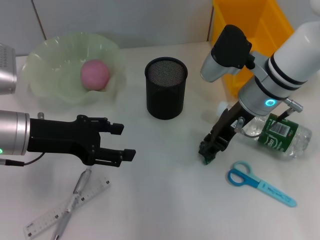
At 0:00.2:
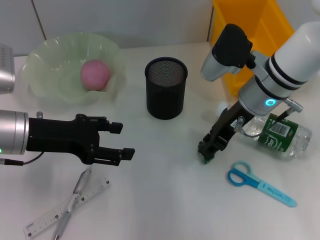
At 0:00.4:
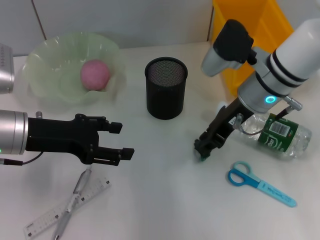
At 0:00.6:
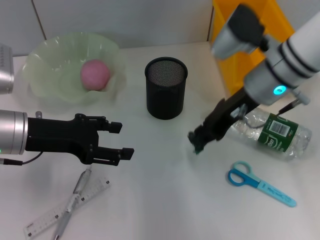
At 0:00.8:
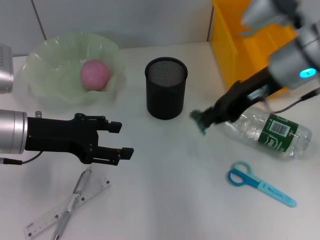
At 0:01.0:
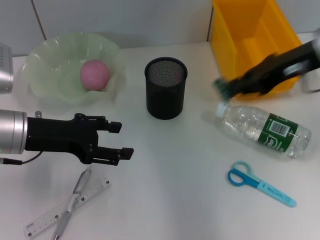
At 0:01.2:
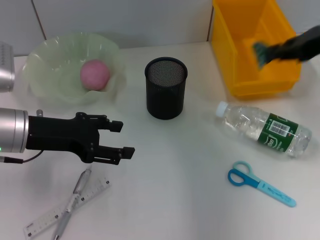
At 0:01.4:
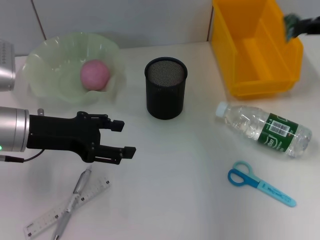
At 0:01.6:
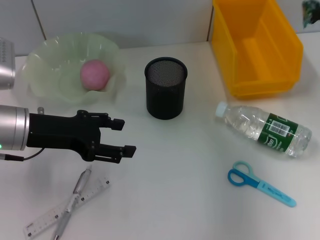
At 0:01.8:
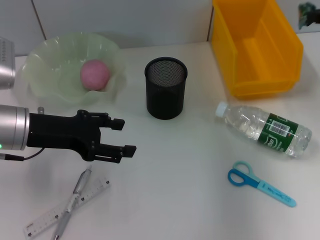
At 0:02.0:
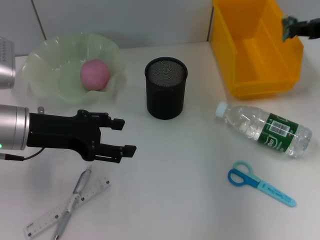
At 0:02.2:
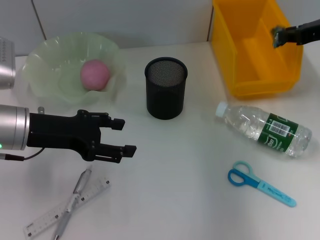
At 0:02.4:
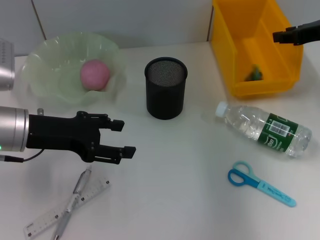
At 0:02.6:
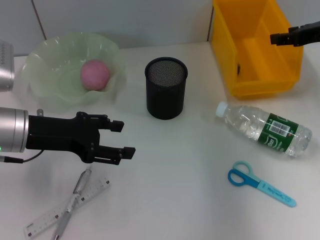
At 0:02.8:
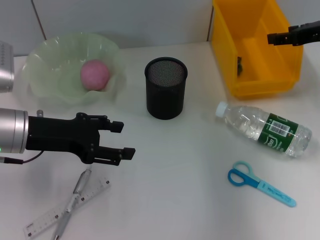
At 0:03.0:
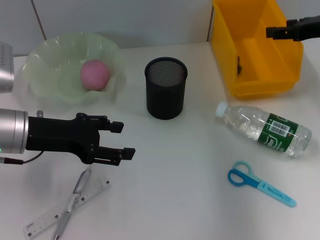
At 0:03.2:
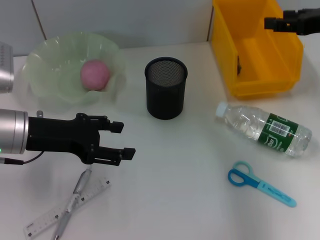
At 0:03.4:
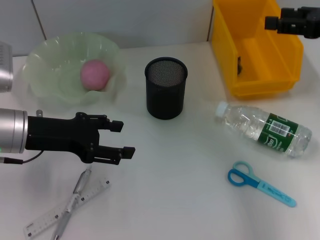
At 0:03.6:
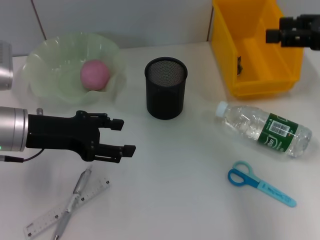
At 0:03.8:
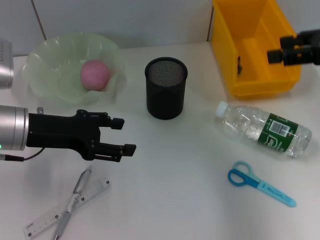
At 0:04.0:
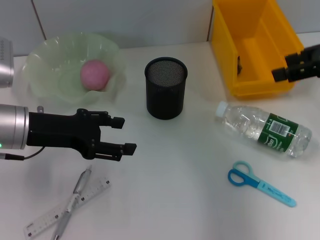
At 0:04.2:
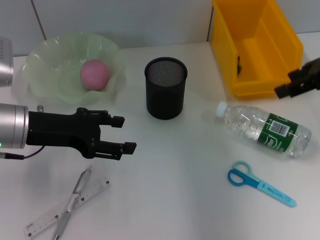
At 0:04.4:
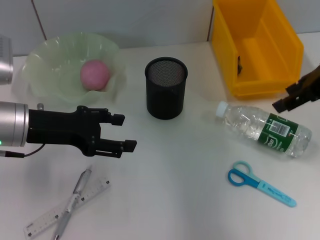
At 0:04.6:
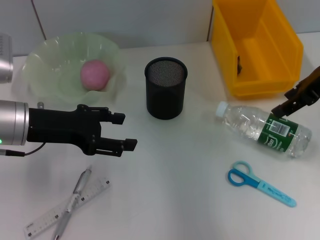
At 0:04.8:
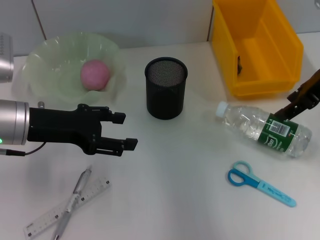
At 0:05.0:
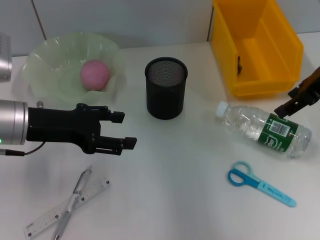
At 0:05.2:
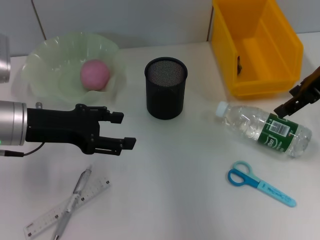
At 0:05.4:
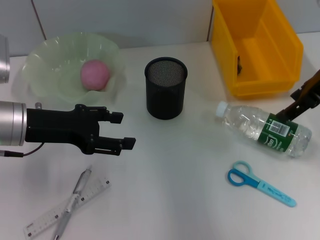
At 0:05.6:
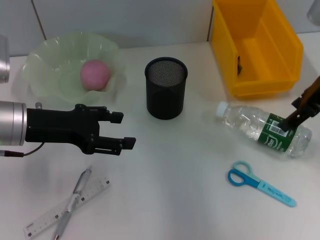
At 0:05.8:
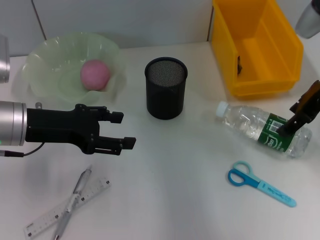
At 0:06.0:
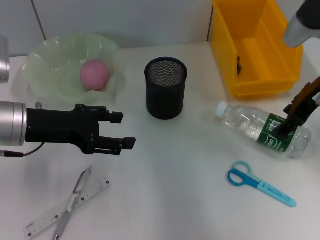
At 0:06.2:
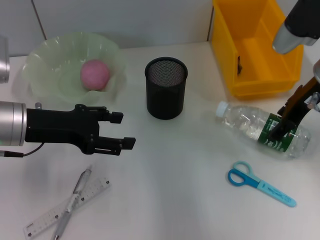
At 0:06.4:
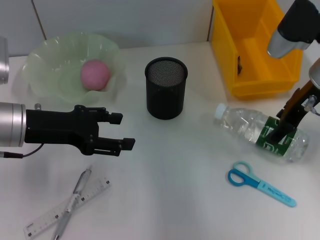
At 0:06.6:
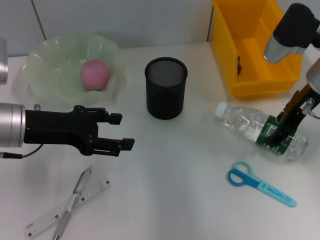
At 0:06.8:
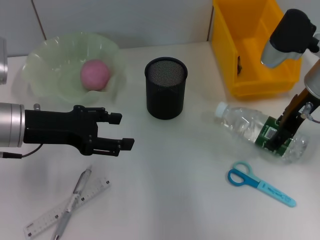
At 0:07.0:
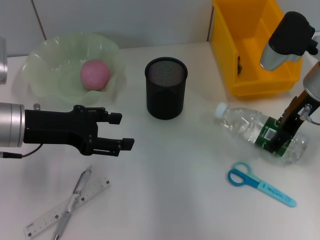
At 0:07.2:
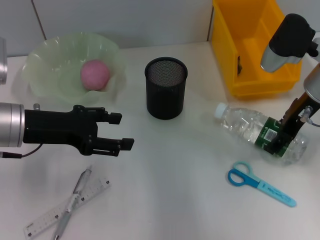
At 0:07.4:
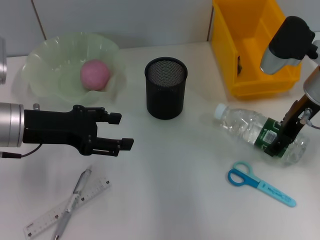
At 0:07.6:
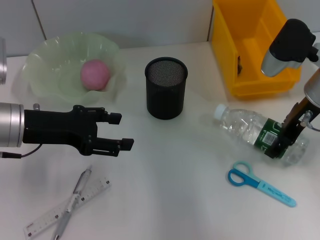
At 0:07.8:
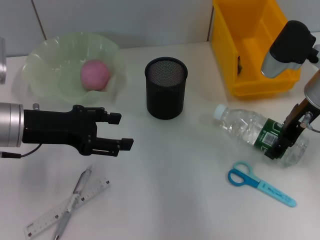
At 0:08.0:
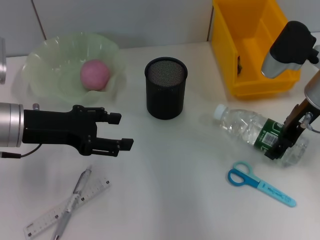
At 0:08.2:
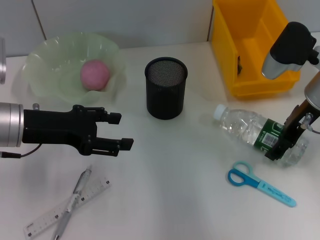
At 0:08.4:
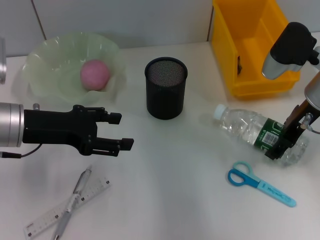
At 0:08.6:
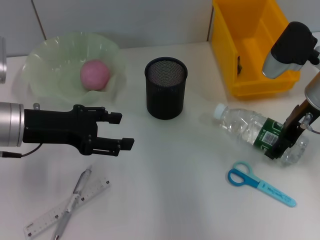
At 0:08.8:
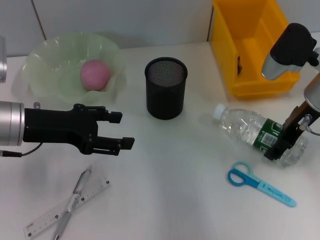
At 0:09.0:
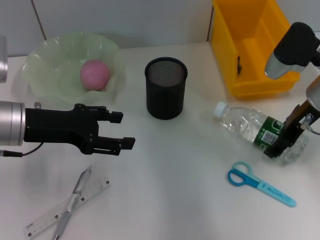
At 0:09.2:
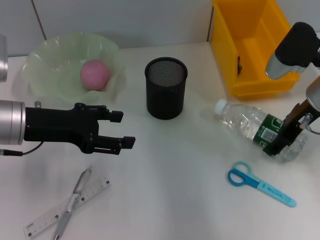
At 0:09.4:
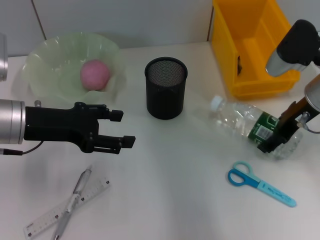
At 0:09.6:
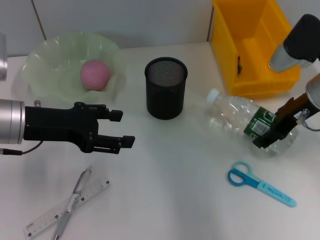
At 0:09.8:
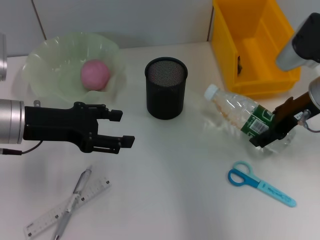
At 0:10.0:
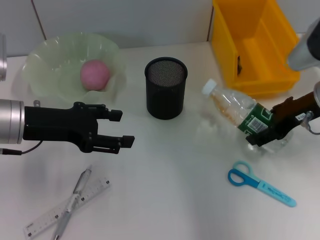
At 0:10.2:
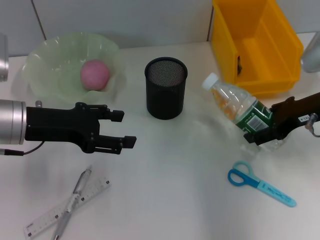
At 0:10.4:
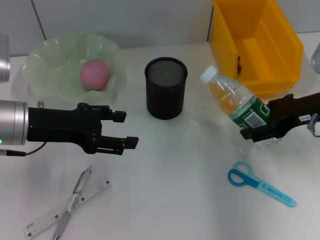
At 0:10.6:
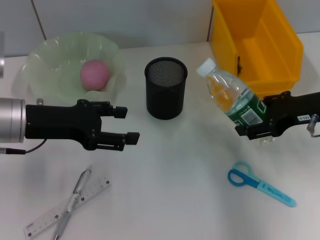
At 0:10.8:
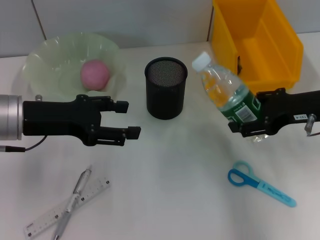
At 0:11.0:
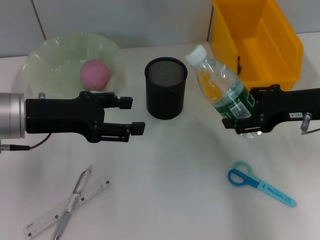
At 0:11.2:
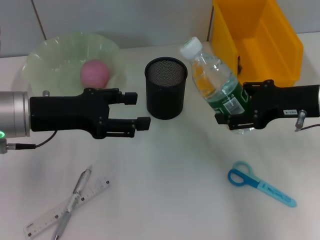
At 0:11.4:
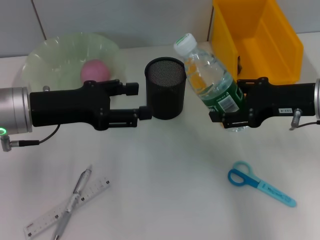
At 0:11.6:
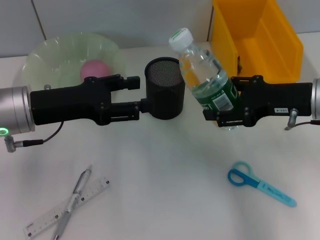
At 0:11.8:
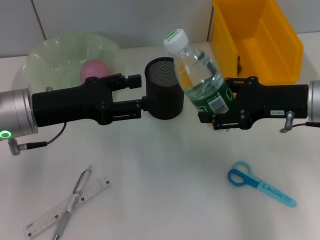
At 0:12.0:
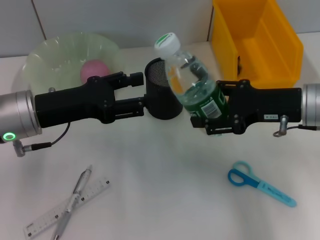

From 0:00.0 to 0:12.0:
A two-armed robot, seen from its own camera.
Step, from 0:00.2 to 0:02.8: Place the plastic into the trash can with the right hand.
Step, from 0:03.0 to 0:09.0: Grab the water bottle with the right hand.
From 0:00.0 to 0:01.6: The right gripper travels to the right and upward by roughly 25 cm.
From 0:01.6 to 0:03.0: The right gripper heads downward, covering roughly 5 cm, and opens.
From 0:03.0 to 0:04.4: The right gripper shifts by some 5 cm.
From 0:04.4 to 0:06.0: The right gripper moves about 5 cm.
From 0:06.0 to 0:07.6: The grippers make only small movements.
From 0:07.6 to 0:09.0: The two grippers keep their place.

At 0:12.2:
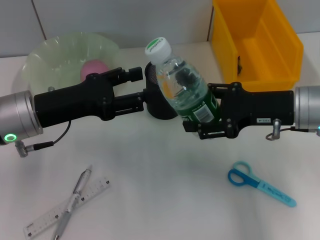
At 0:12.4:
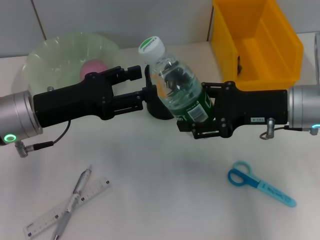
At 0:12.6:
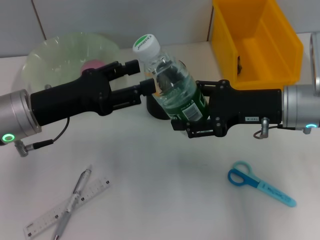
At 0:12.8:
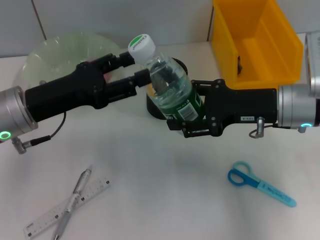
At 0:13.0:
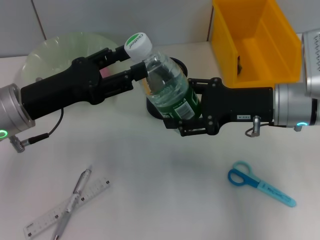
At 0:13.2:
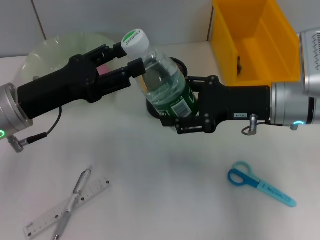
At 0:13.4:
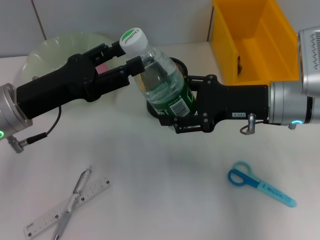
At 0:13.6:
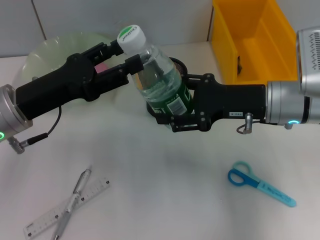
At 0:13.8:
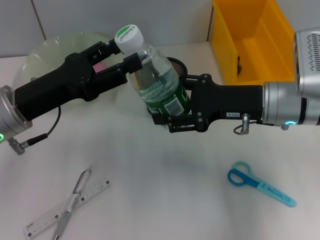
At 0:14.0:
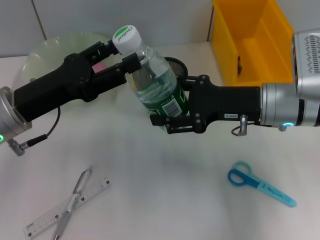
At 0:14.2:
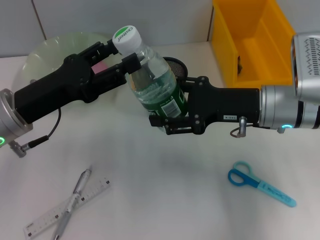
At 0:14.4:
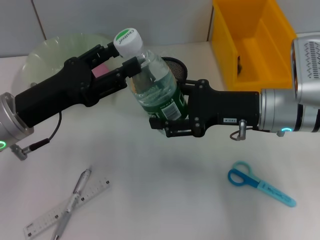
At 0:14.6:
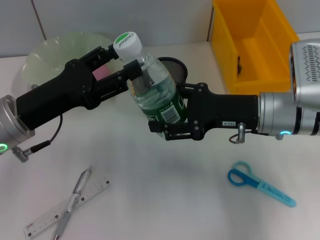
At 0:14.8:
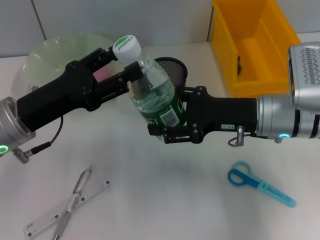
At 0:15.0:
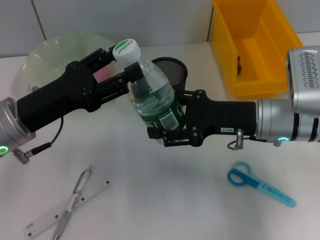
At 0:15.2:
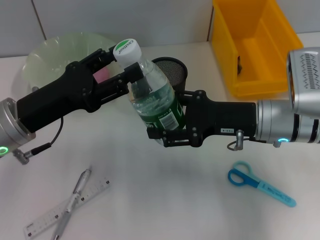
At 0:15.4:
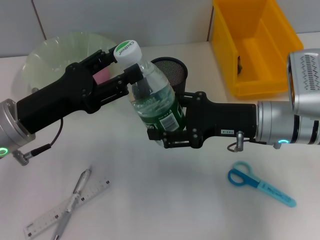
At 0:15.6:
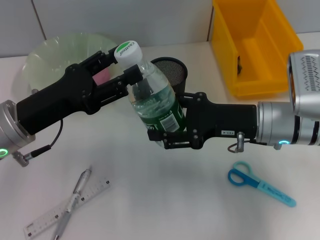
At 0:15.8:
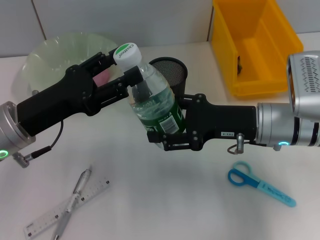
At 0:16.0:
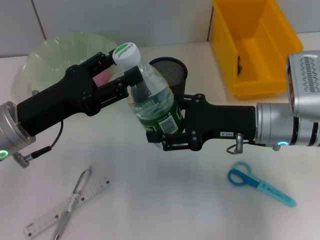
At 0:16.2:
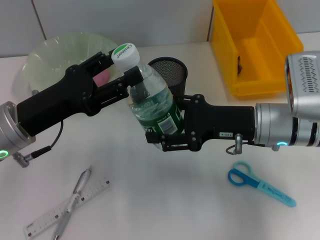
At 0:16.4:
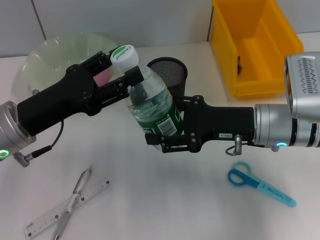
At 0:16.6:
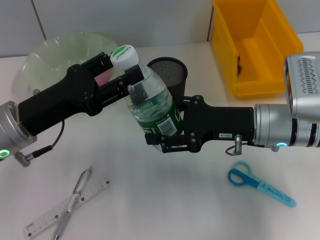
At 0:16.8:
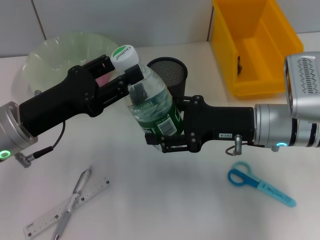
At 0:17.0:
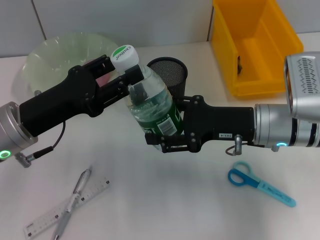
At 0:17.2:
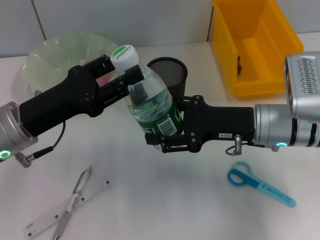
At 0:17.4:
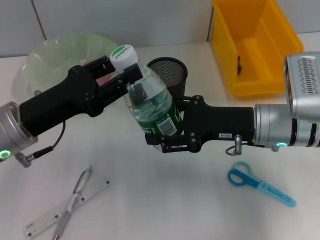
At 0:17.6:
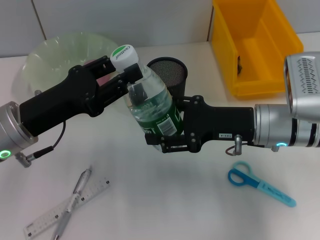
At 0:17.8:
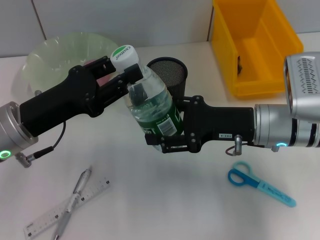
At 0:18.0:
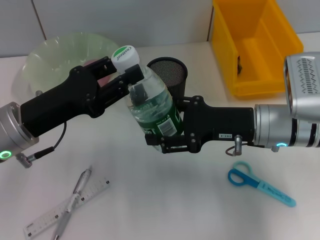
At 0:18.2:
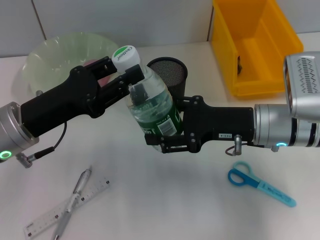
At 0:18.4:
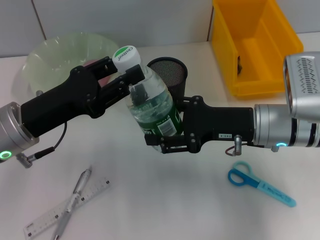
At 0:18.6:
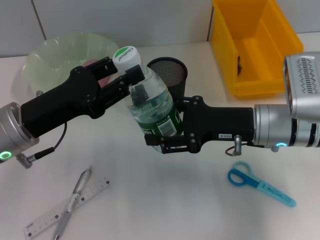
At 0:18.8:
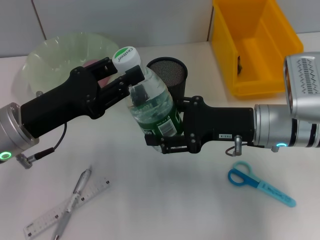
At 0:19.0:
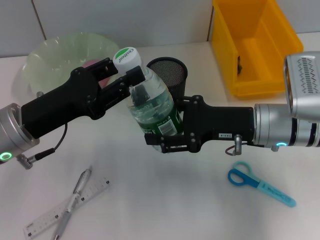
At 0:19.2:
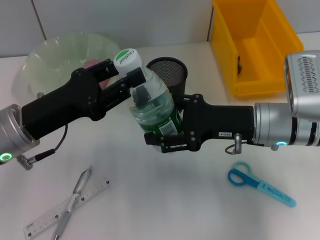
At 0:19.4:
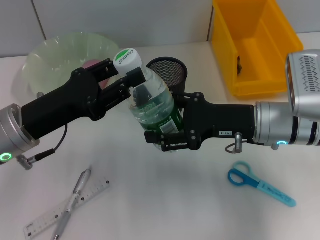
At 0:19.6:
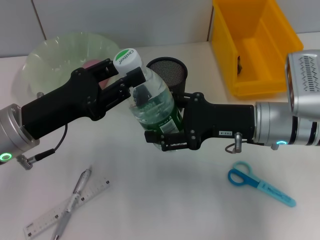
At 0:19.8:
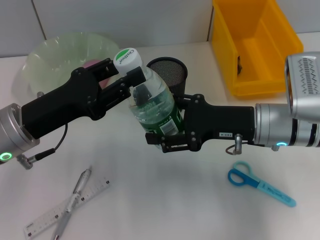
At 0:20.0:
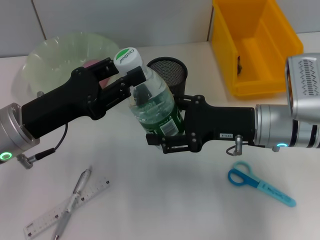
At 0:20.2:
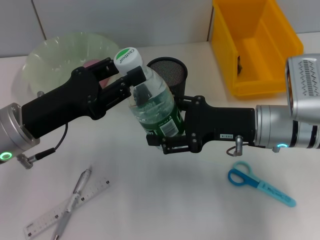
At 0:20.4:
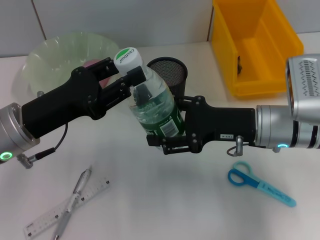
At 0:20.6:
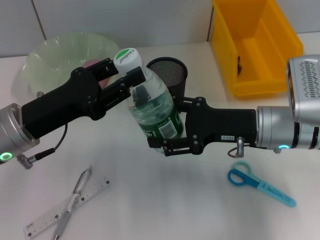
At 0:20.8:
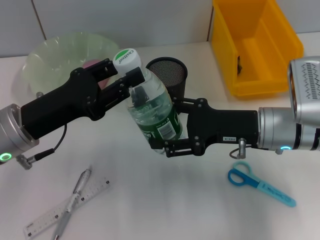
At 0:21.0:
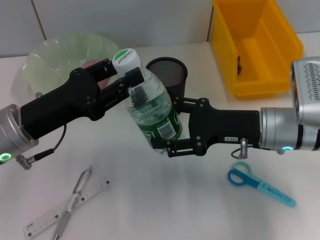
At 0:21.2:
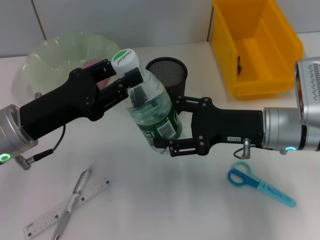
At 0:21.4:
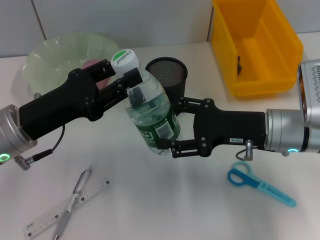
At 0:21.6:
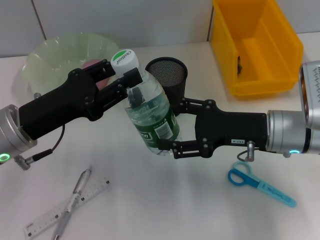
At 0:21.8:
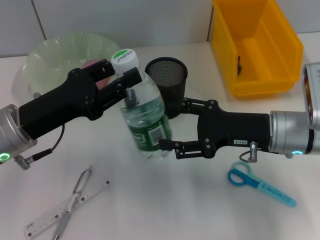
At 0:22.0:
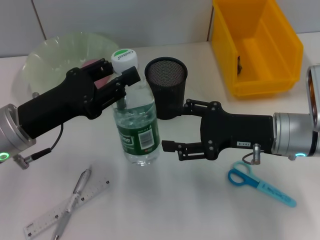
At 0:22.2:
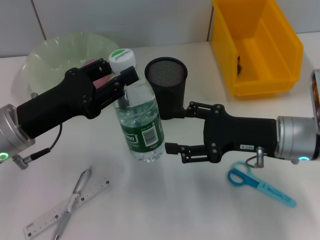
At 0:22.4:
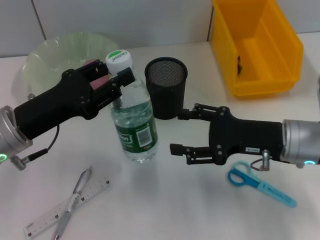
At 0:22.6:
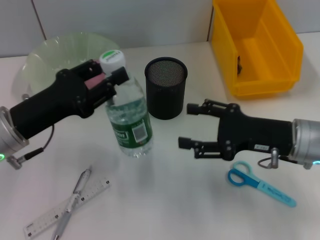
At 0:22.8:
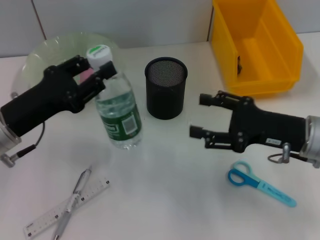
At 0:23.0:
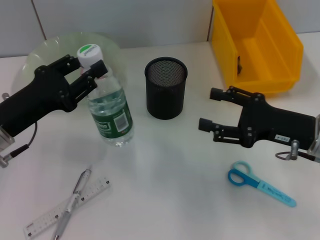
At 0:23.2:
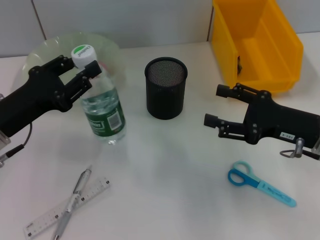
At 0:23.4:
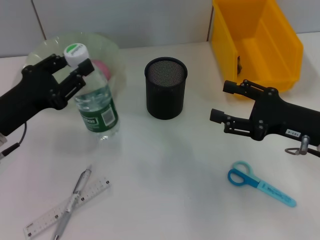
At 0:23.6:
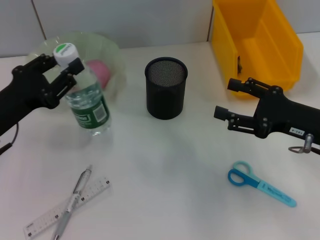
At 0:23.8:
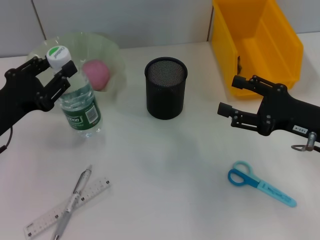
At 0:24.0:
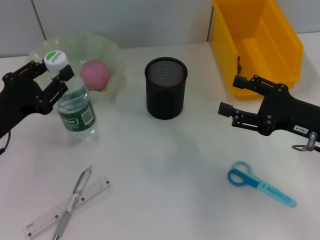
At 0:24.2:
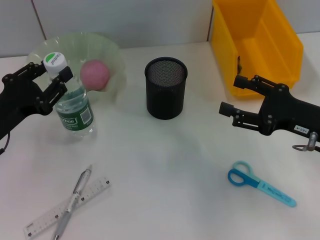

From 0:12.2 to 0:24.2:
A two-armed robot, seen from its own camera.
Step, from 0:12.2 to 0:21.6: Pass the water bottle from the right hand to the left hand.
From 0:15.2 to 0:16.6: Neither gripper changes place.
From 0:16.6 to 0:18.2: The left gripper closes up.
From 0:18.2 to 0:21.2: Neither gripper changes place.
From 0:22.6 to 0:24.2: The left gripper moves approximately 5 cm; the right gripper moves to the right, about 5 cm.
